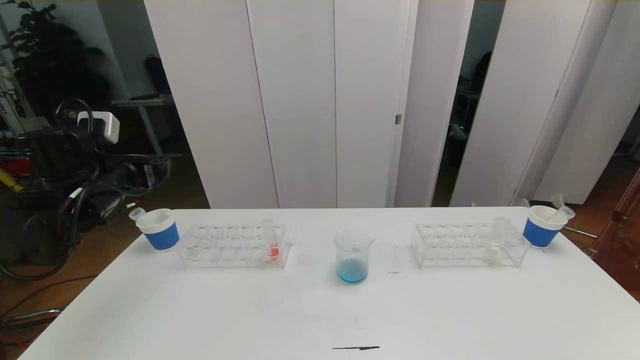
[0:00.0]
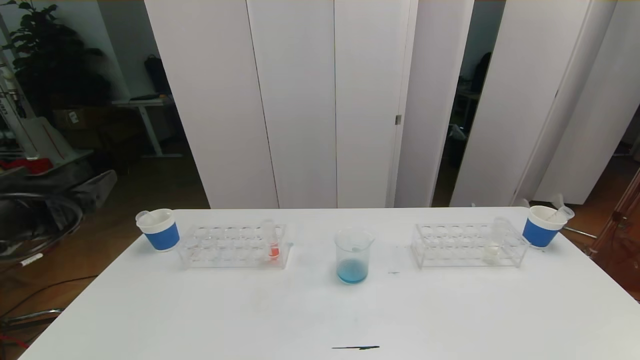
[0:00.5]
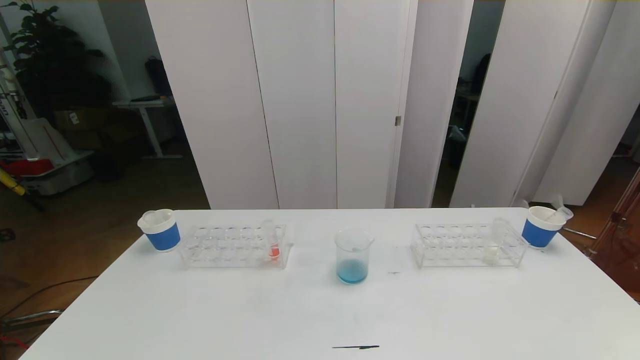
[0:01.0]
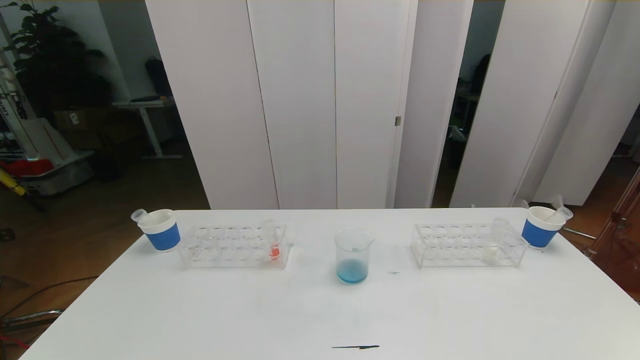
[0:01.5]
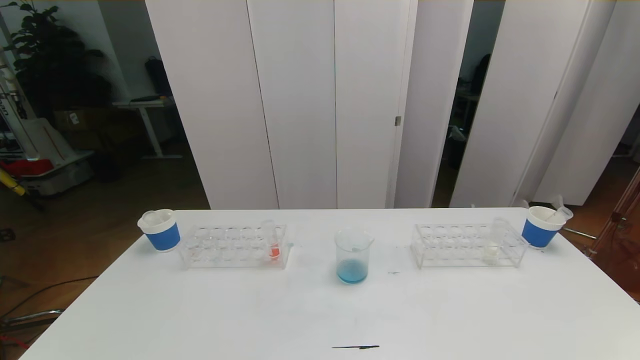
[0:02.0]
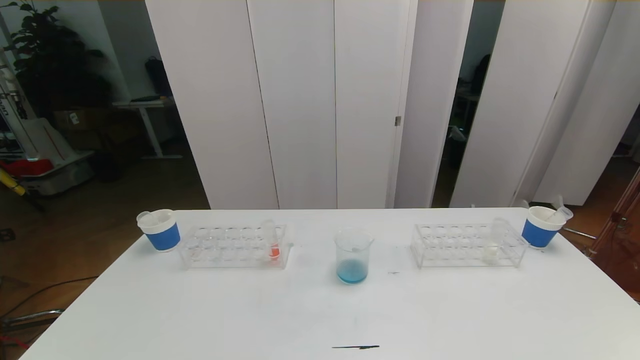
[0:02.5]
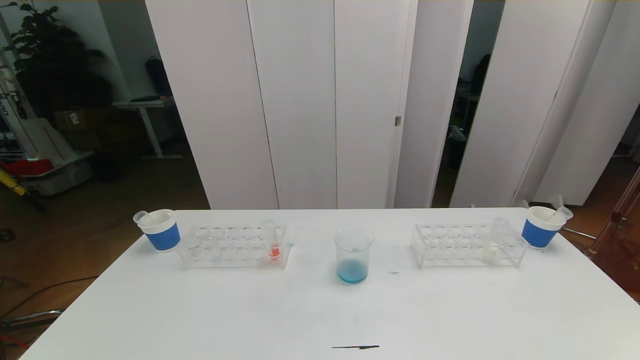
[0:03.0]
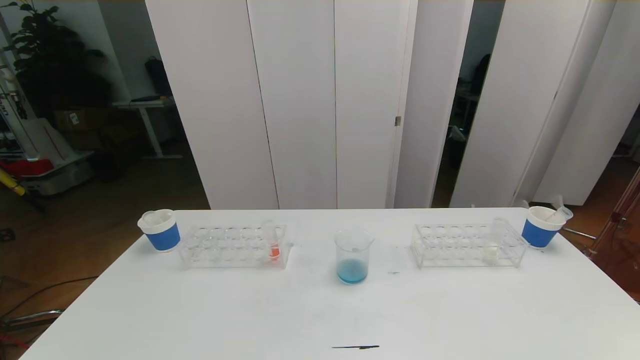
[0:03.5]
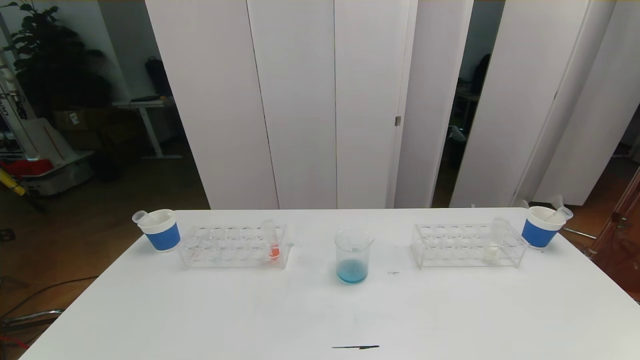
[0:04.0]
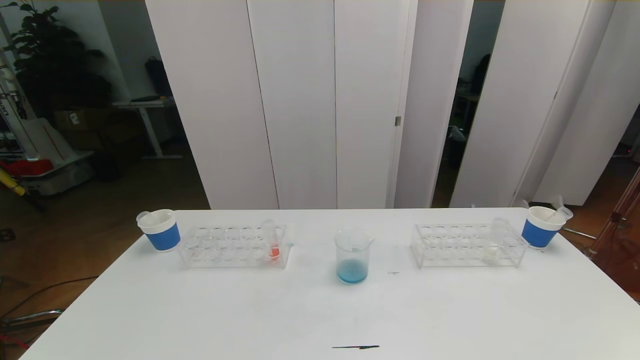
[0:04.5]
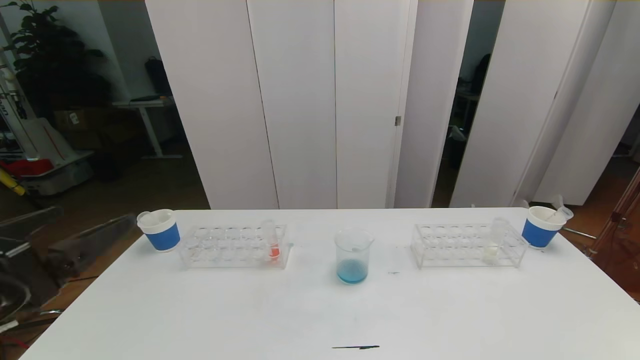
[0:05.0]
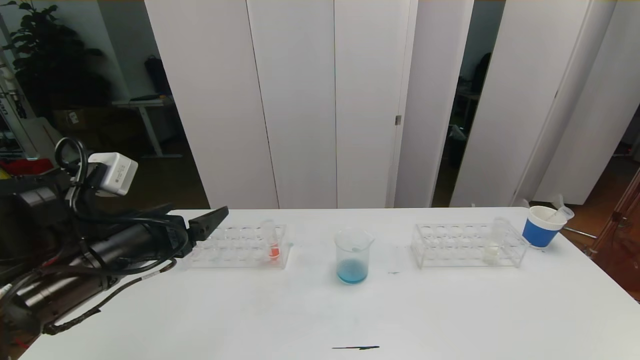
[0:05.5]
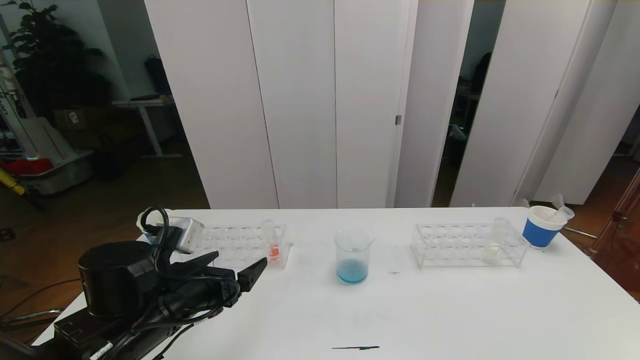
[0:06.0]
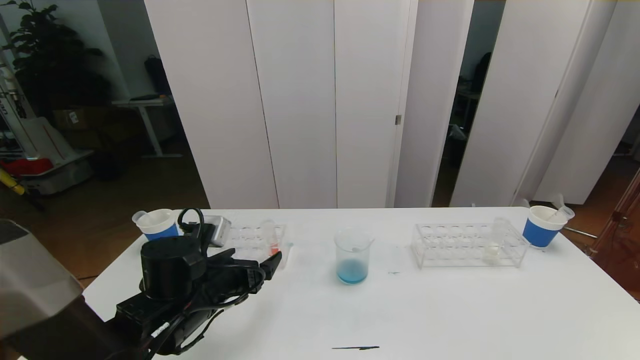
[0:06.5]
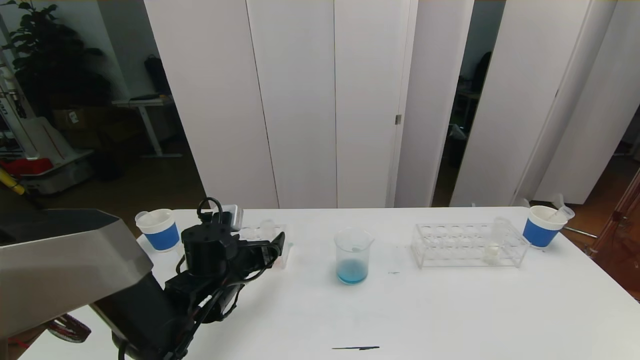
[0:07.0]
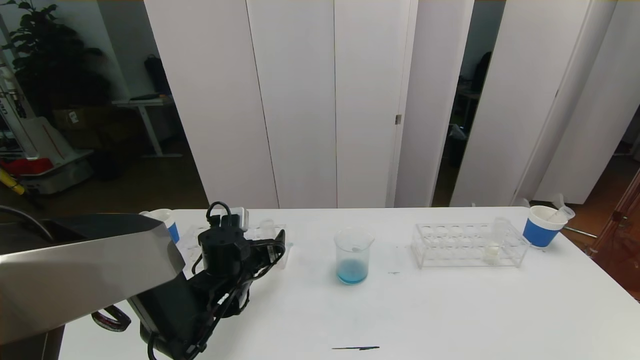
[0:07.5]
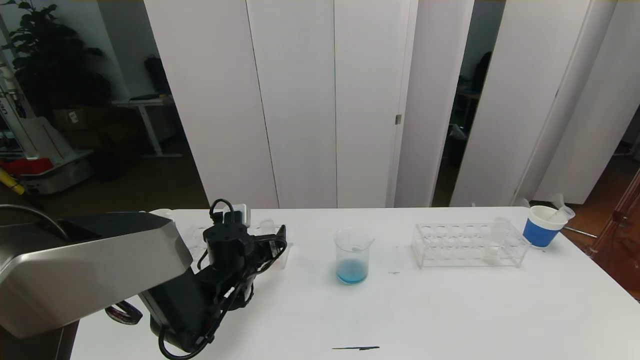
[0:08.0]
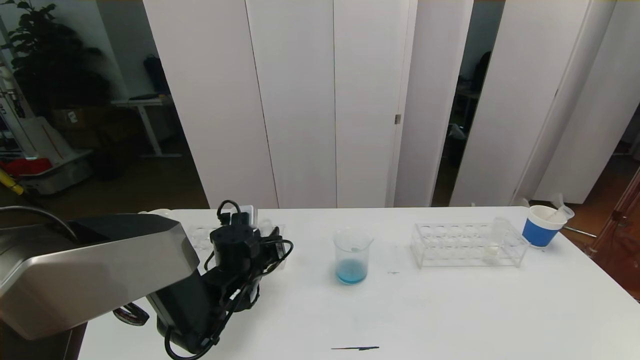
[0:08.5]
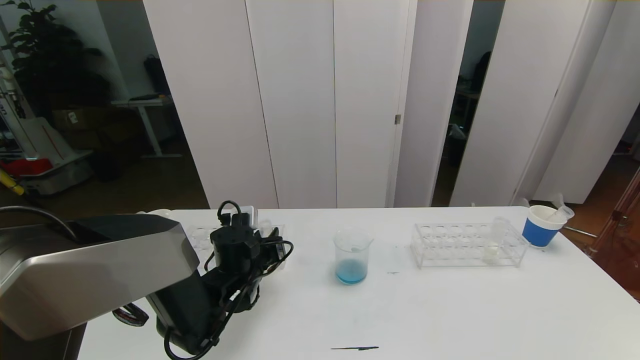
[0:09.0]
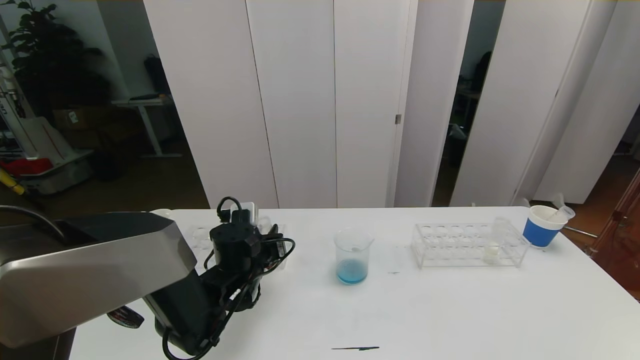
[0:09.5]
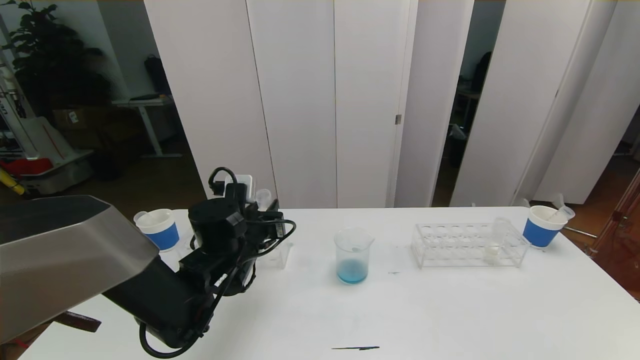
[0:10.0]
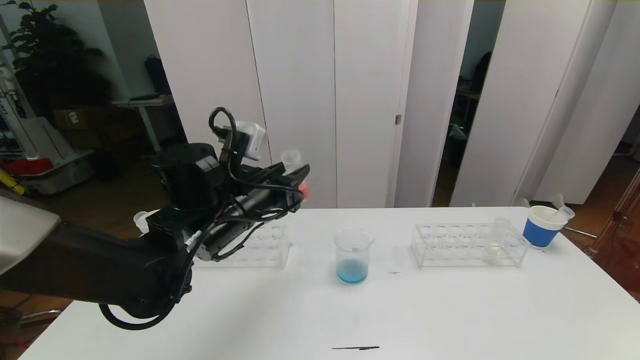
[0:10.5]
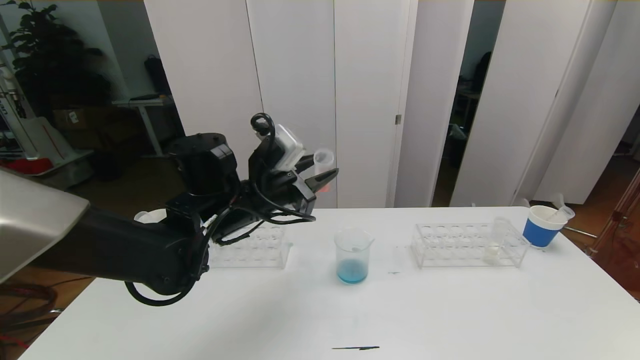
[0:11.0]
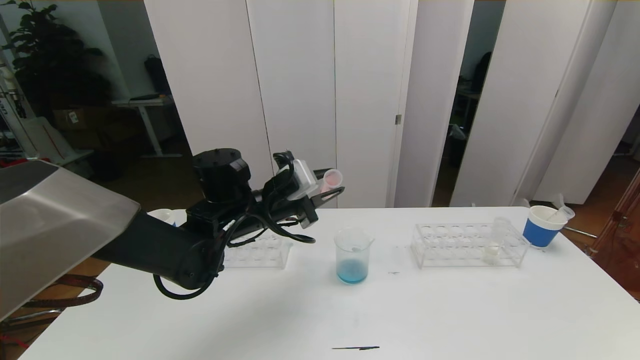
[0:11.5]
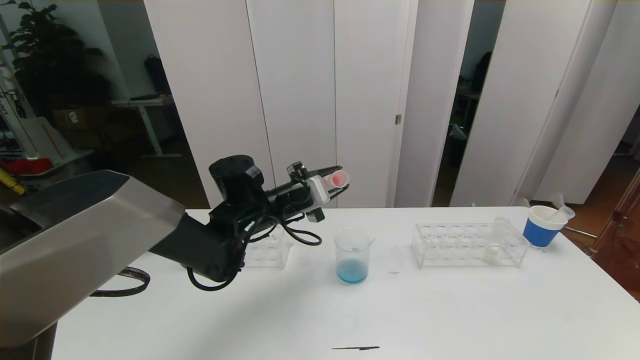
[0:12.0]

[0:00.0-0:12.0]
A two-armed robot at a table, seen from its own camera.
Task of the whole recording: pick up the test tube with red pigment the test tube with blue pigment and the test tube with white pigment by grippers and pour them into the beaker.
Step, 0:00.0 to 0:02.0: Pour the blue reagent into the graduated cylinder and place the test tube into the paper cup.
0:00.0 to 0:02.0: The left gripper travels backward by approximately 40 cm.
0:04.0 to 0:06.0: The left gripper heads forward, covering approximately 25 cm.
0:06.0 to 0:08.0: The left gripper travels forward and downward by some 15 cm.
0:08.0 to 0:10.0: The left gripper goes roughly 5 cm upward, and closes.
0:10.0 to 0:12.0: The left gripper heads forward, covering some 5 cm.

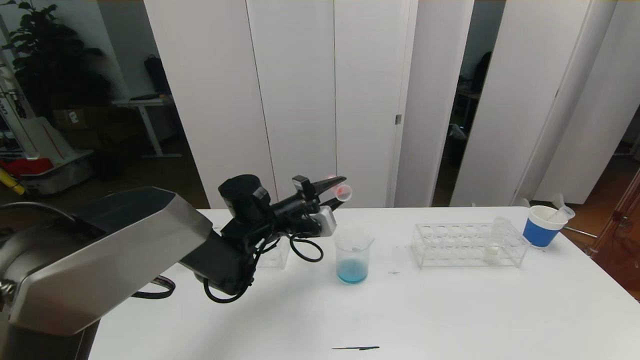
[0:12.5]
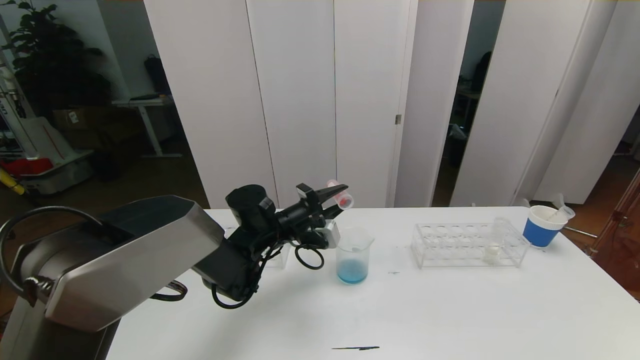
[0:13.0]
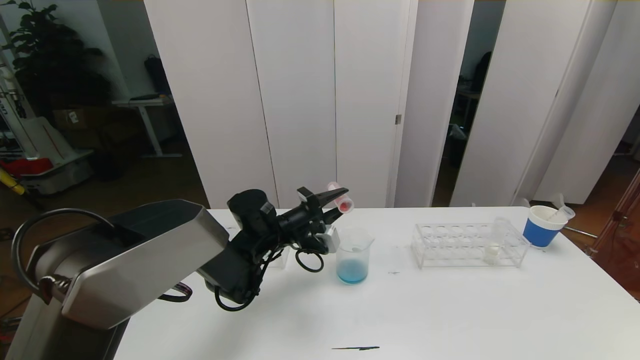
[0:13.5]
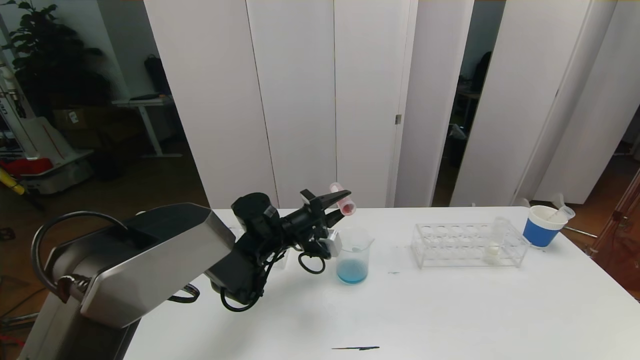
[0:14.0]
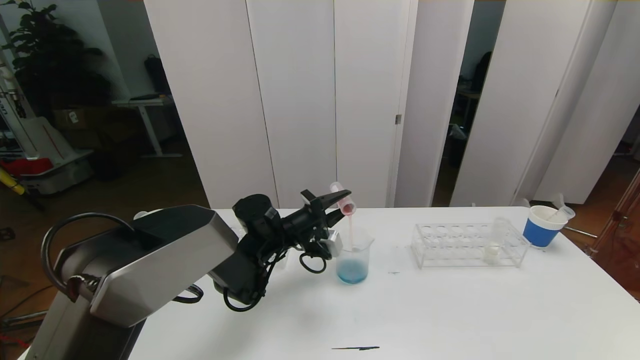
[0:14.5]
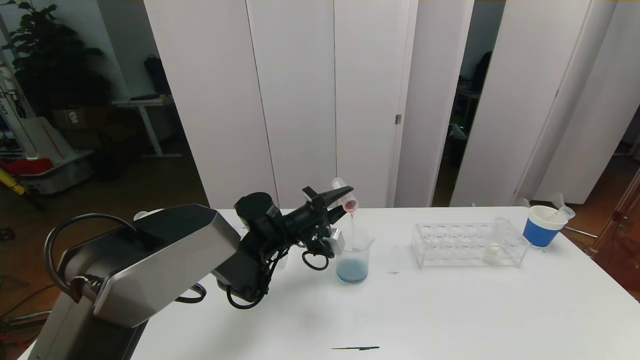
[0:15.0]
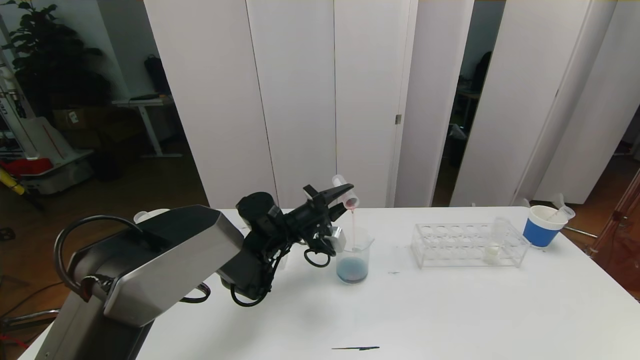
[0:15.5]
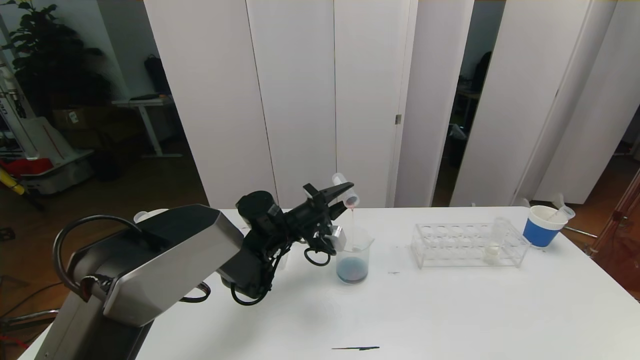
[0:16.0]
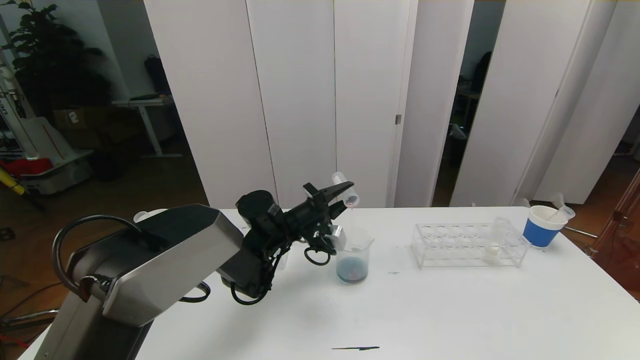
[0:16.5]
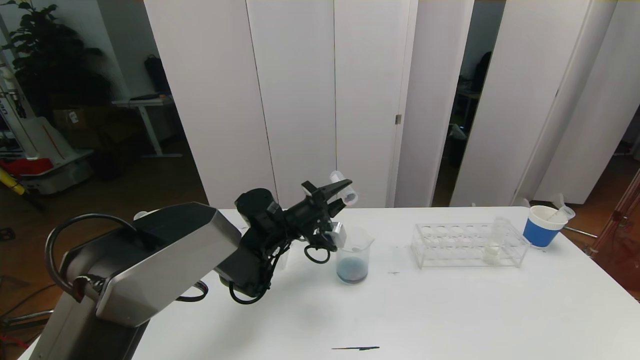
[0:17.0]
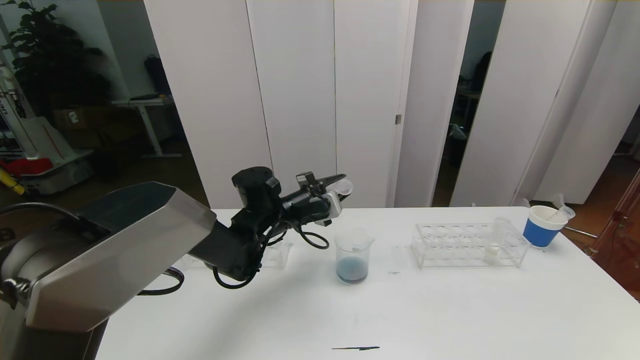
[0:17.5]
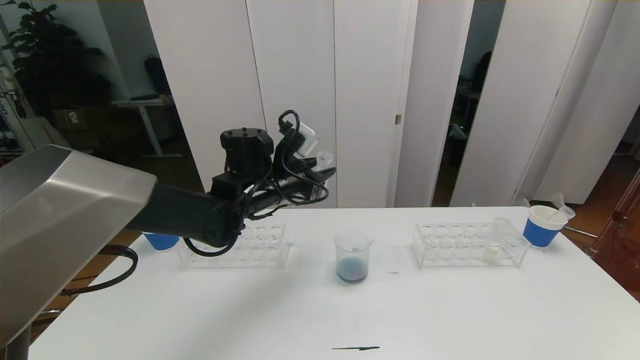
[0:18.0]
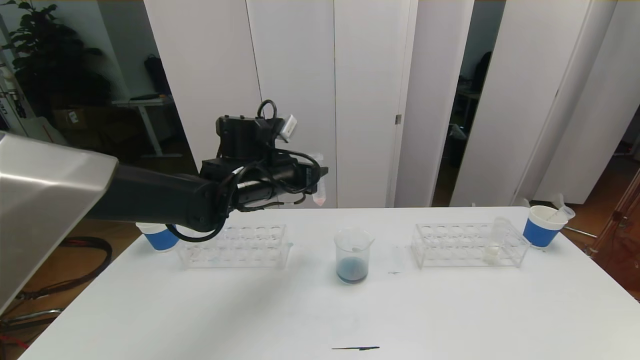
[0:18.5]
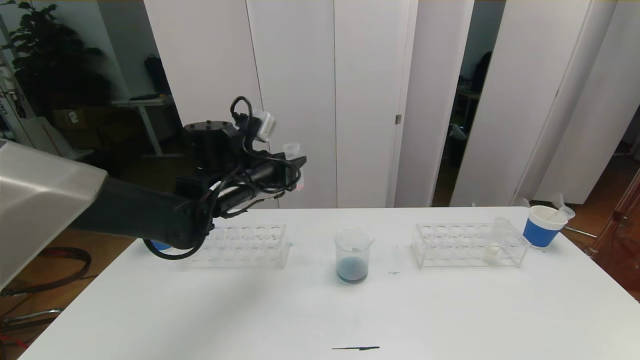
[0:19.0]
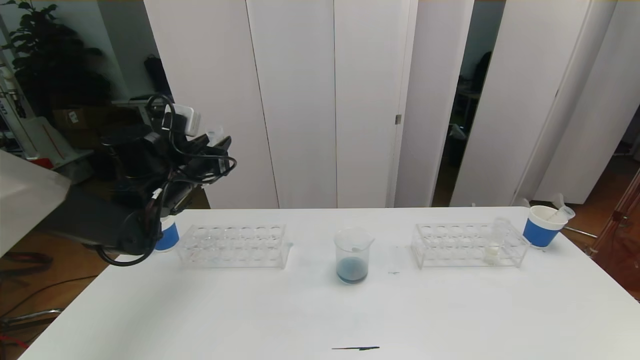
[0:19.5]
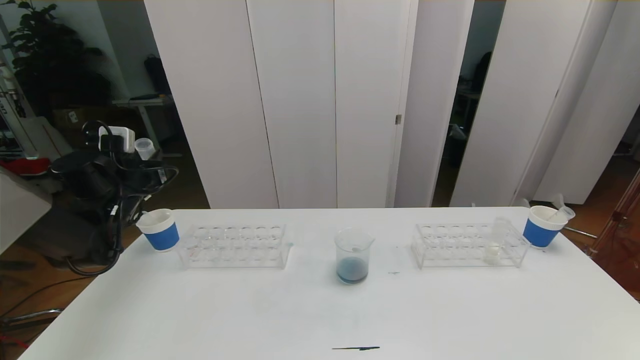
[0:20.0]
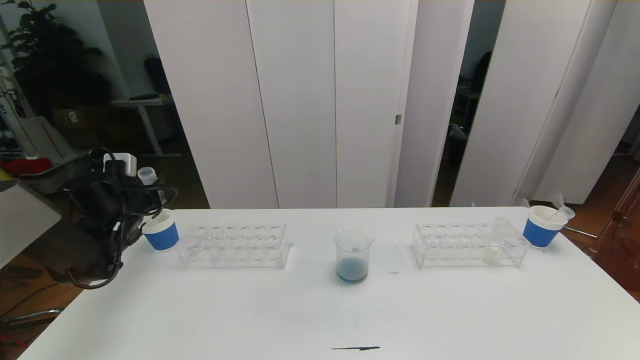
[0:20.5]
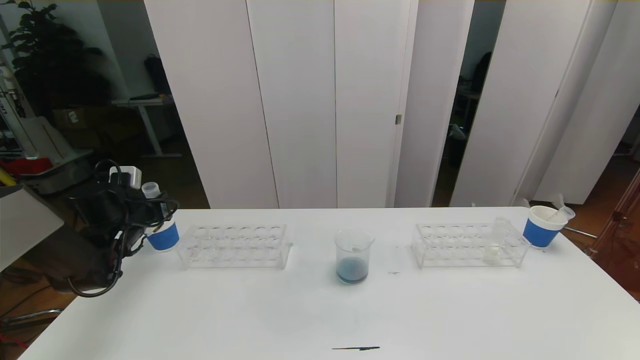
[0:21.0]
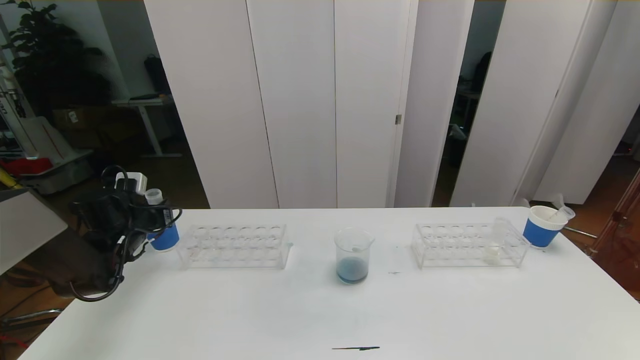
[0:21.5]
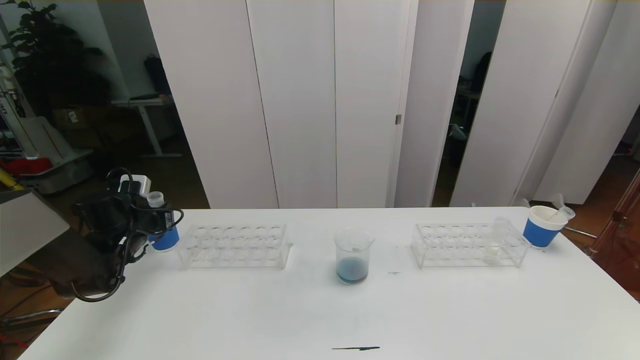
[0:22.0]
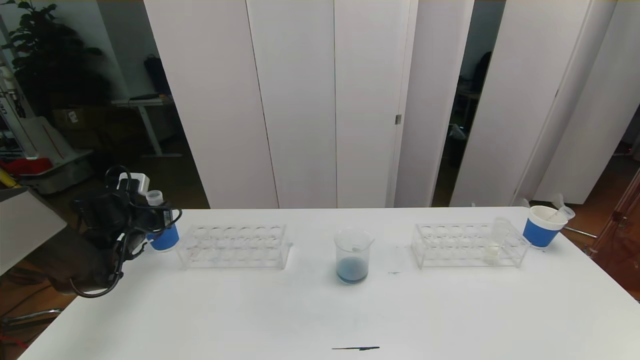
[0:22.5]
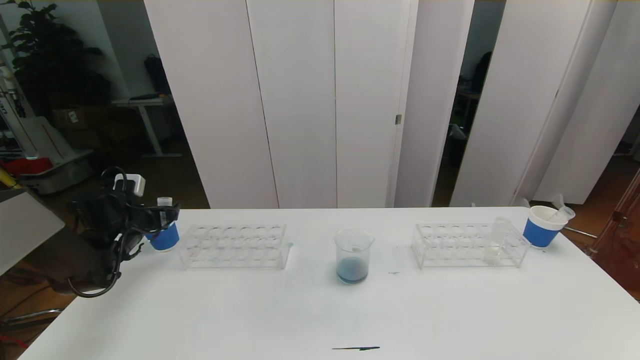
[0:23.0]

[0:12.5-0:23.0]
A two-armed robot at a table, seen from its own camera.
Task of the whole recording: pick up the test tube with red pigment the test tube with blue pigment and the test tube with white pigment by grippers and pour them into the beaker.
0:12.5 to 0:16.5: The grippers move only a little.
0:16.5 to 0:19.0: The left gripper travels upward and to the left by approximately 15 cm.
0:19.0 to 0:21.0: The left gripper heads to the left and downward, covering roughly 25 cm.
0:21.0 to 0:23.0: The left gripper opens.
